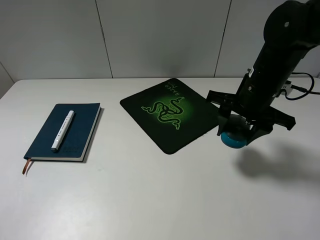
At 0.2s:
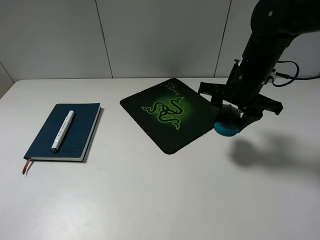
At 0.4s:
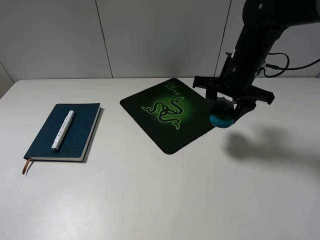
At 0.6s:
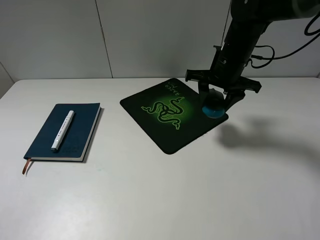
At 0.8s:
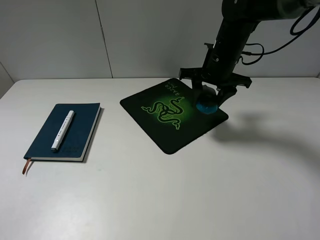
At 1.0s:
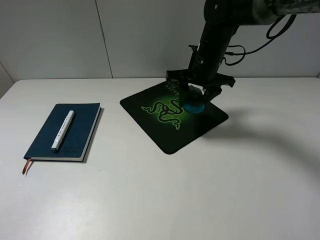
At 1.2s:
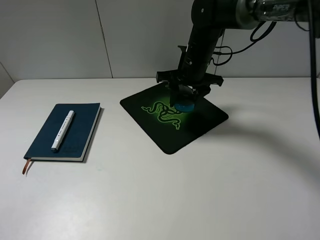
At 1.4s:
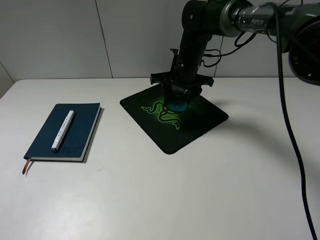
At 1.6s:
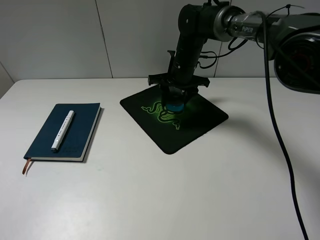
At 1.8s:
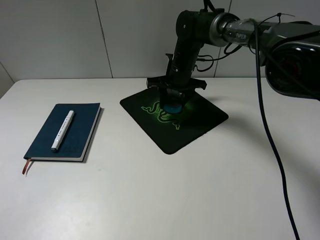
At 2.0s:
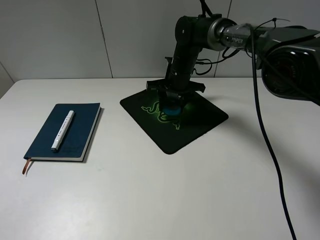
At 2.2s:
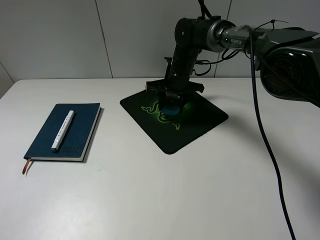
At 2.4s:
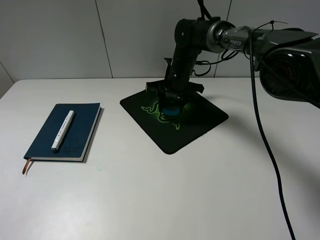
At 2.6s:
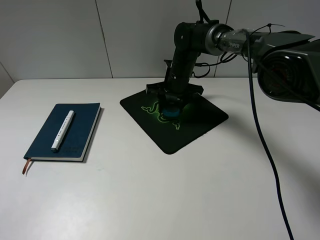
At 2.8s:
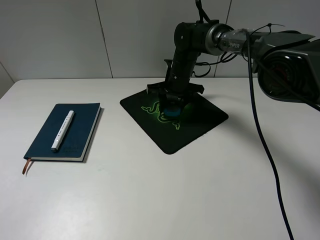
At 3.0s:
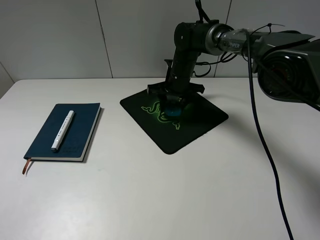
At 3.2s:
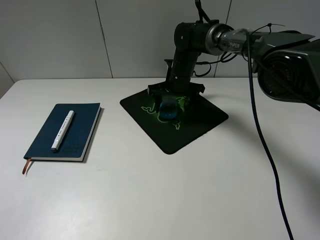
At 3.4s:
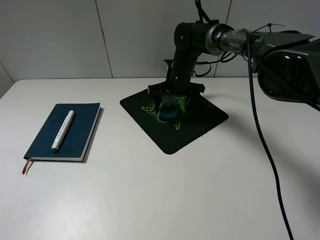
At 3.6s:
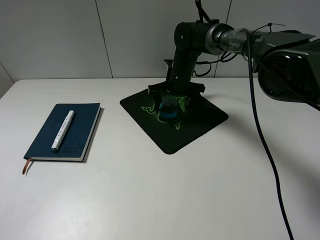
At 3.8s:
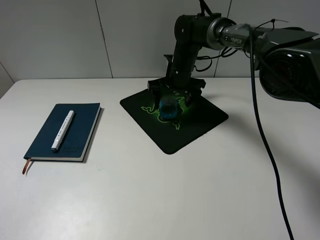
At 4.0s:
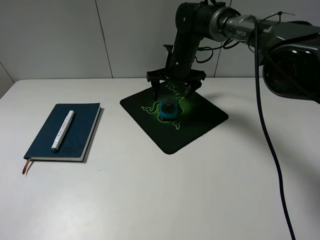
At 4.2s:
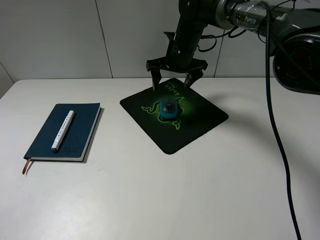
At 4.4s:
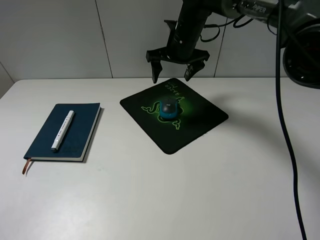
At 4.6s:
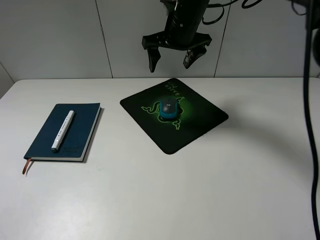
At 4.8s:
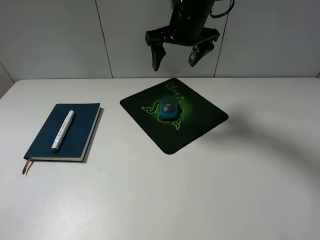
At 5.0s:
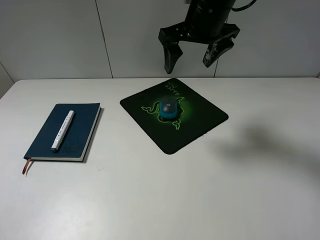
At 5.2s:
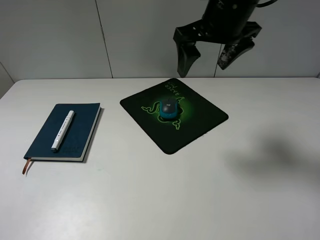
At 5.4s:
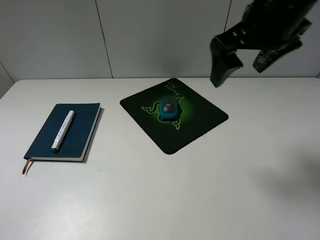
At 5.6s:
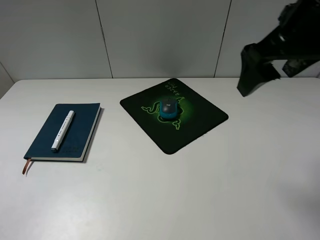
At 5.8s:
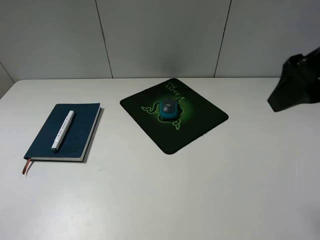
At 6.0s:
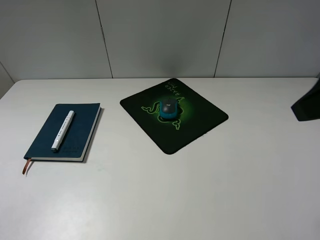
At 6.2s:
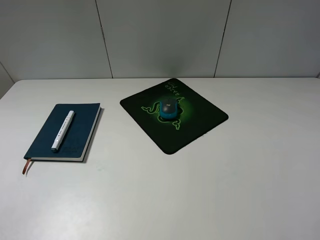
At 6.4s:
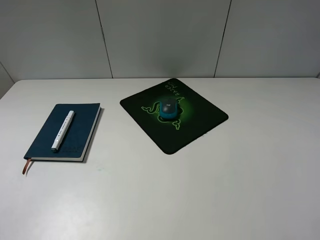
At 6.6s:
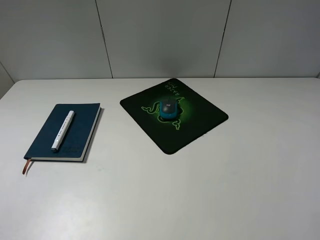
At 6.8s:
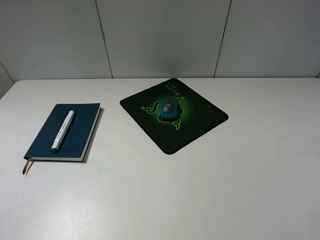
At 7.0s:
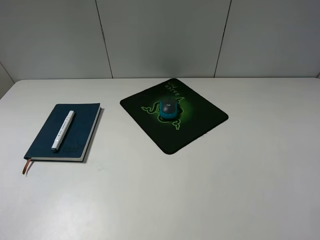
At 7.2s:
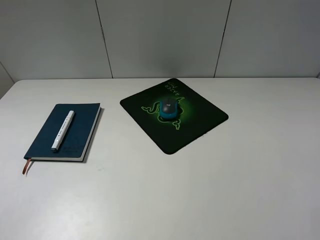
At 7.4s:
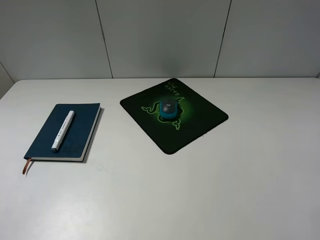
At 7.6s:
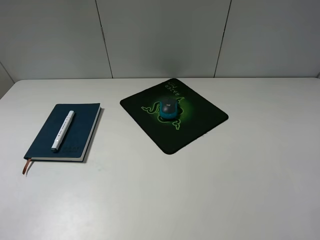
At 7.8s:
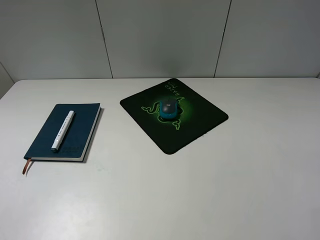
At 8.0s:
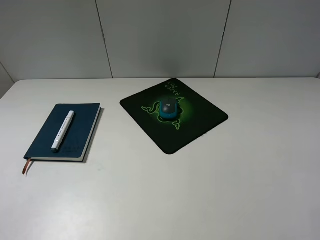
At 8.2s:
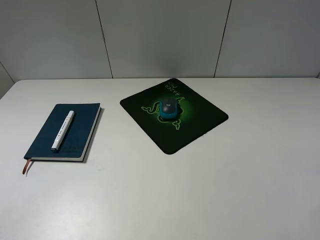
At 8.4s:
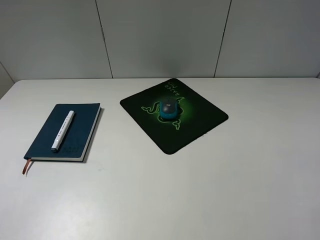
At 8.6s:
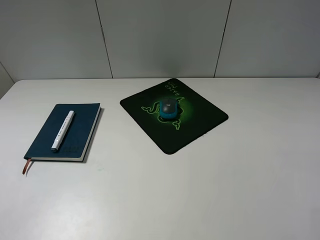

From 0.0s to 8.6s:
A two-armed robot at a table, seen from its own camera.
Step, from 0.0s to 3.4s: Place the mouse on the mouse pad with the right gripper.
From 0.0s to 1.4s: The right gripper is displaced forward and to the left by approximately 20 cm.
From 1.4s to 2.8s: The grippers stay close to where they were, moving slightly.
From 2.8s to 4.4s: The right gripper travels upward by some 10 cm, and opens its fingers.
From 4.4s to 5.8s: The right gripper heads backward, to the right and upward, covering about 35 cm.
From 5.8s to 7.2s: The right gripper moves backward, downward and to the right, approximately 20 cm.
From 7.2s to 8.6s: Neither gripper changes place.
